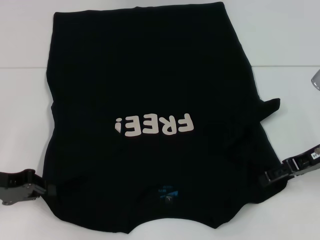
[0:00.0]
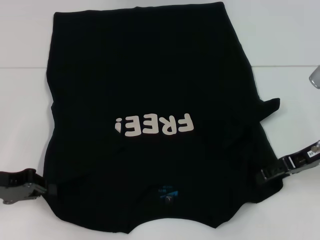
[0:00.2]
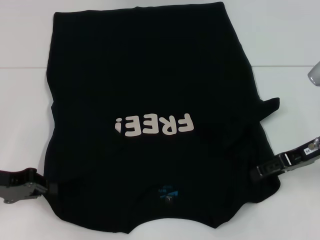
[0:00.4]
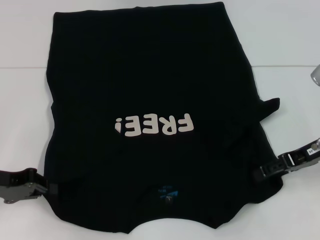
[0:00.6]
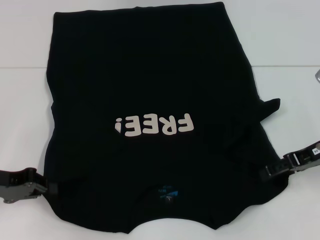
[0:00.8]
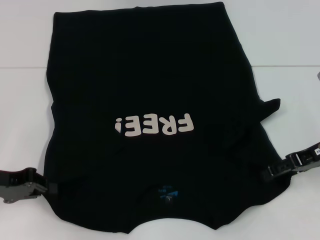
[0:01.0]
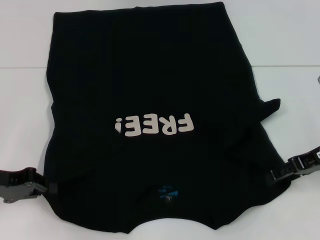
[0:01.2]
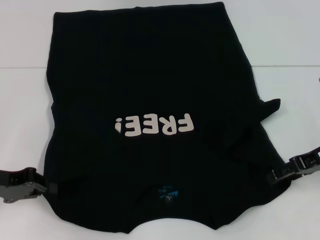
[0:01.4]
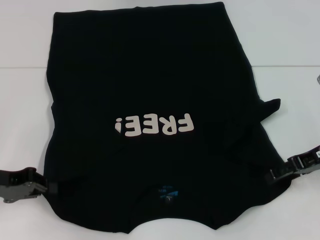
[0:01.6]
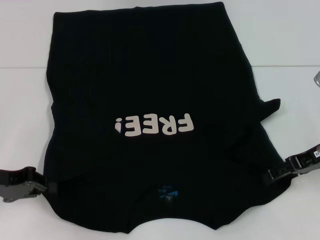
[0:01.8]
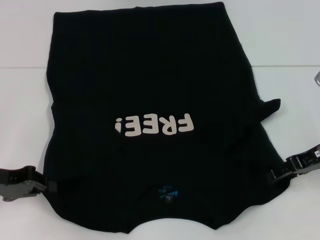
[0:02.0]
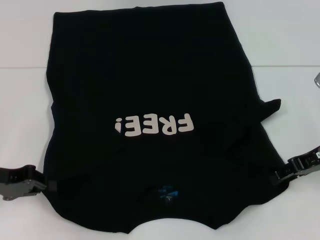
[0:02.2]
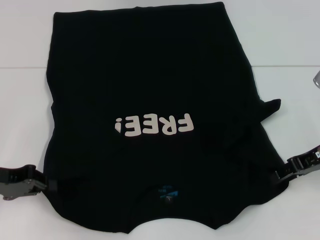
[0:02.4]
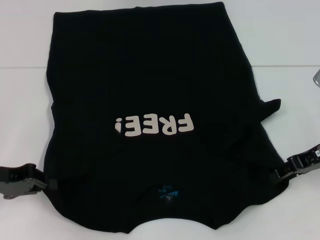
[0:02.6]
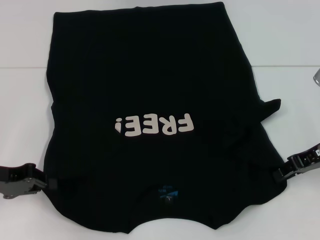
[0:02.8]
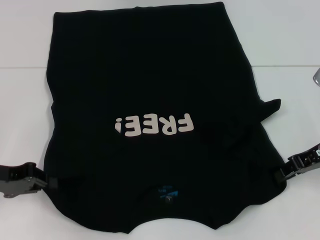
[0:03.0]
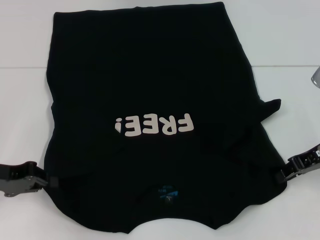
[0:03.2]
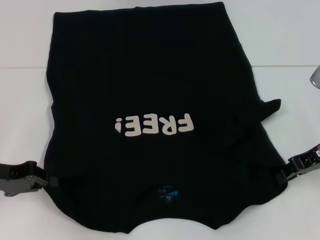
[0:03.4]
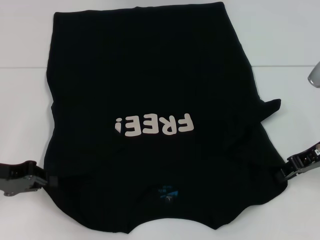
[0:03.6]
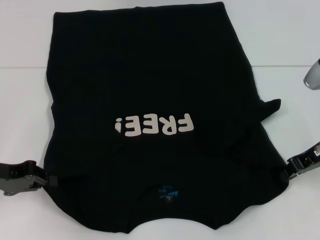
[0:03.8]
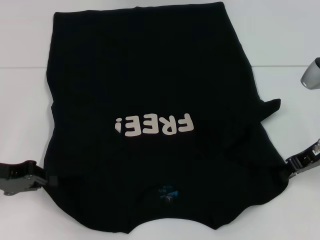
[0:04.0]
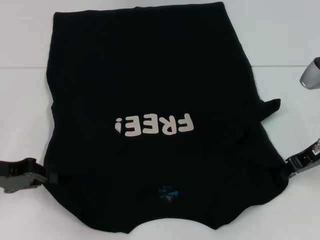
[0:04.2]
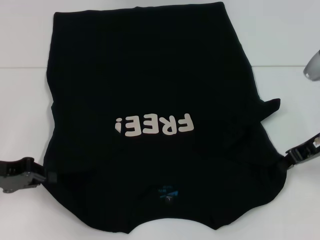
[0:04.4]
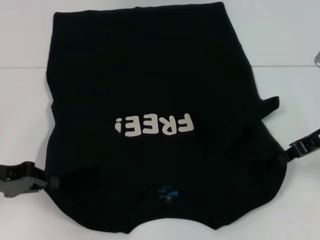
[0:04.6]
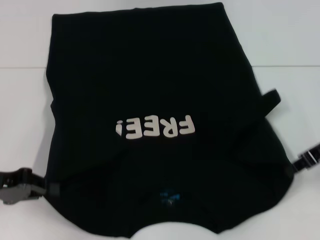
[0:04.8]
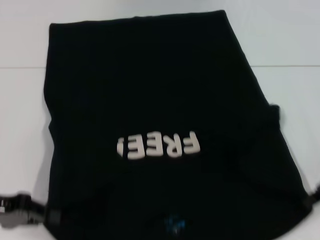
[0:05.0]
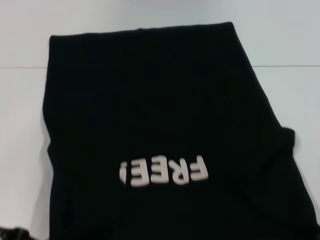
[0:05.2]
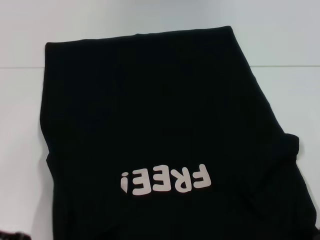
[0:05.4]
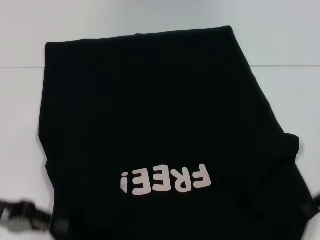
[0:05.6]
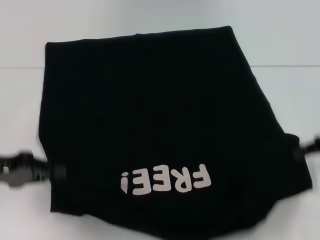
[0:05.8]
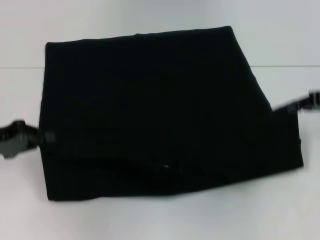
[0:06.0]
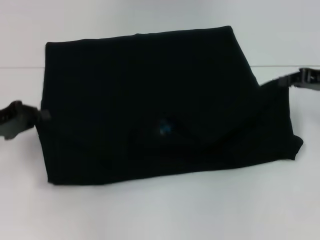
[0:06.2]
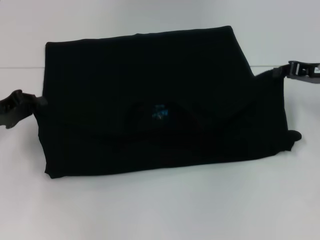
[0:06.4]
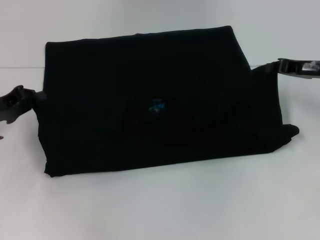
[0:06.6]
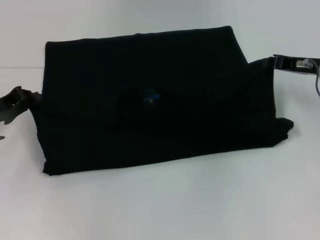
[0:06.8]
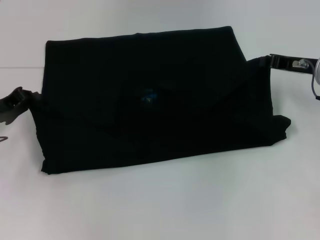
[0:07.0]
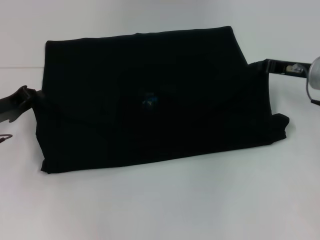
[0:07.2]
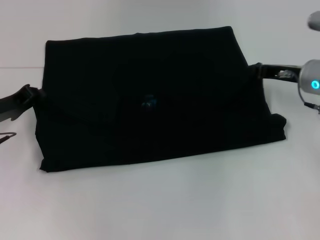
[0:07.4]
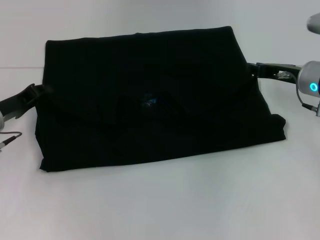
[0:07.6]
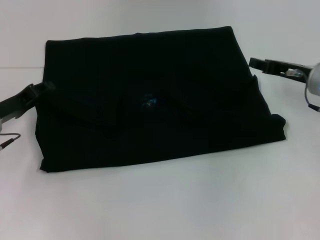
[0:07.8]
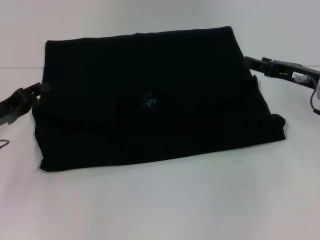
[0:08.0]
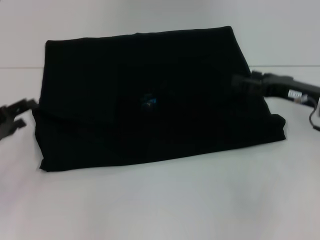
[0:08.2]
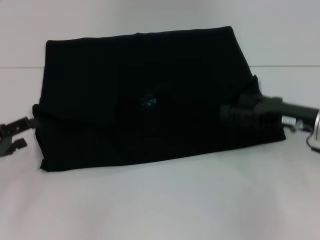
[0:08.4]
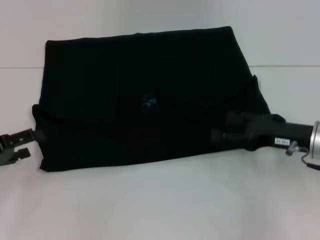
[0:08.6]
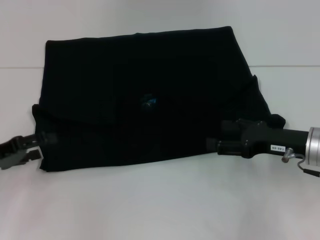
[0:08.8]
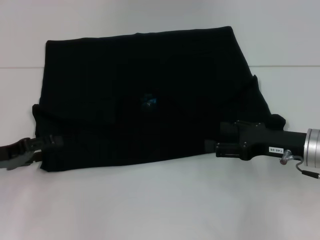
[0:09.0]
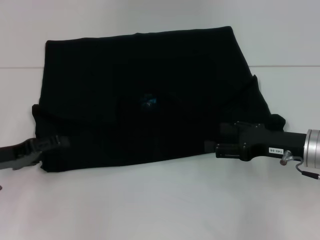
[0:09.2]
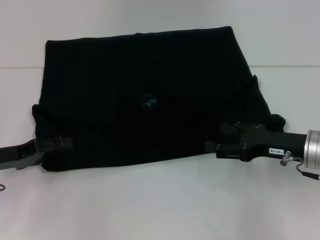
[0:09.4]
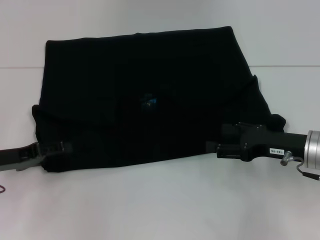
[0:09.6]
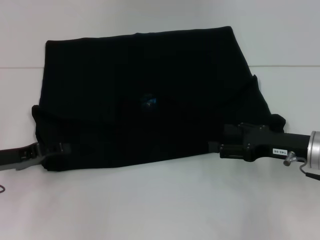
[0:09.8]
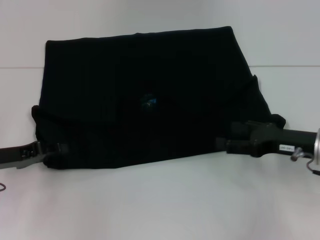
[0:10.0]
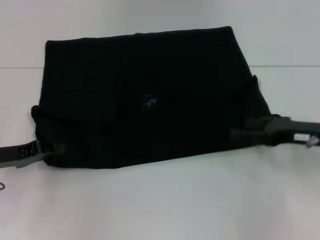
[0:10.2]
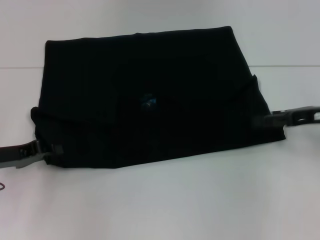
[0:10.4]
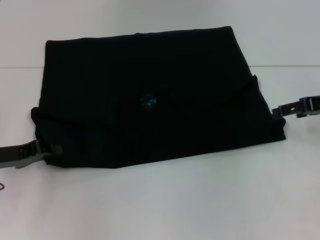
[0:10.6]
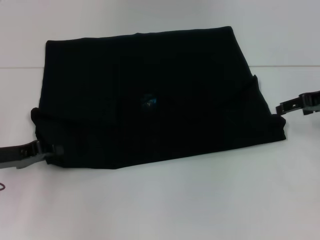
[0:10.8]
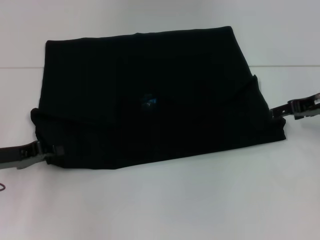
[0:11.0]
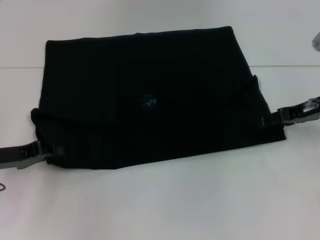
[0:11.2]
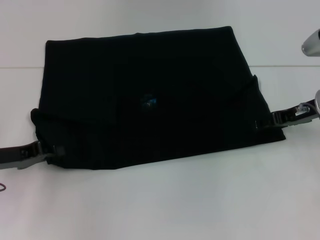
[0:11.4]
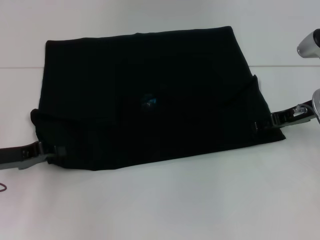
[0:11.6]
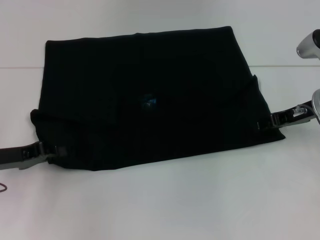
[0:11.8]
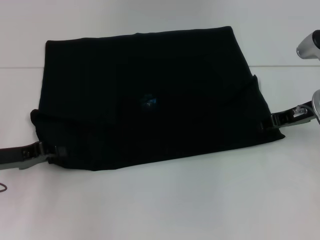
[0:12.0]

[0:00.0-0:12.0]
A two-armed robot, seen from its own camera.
Step, 0:00.0 to 0:04.2: Grab the bottom right corner with your right hand.
Step, 0:04.4 to 0:07.8: Fold the clothes with your left hand.
Step, 0:04.4 to 0:07.8: Fold the clothes with your right hand.
0:00.0 to 0:01.6: Neither gripper changes place.
0:01.6 to 0:03.0: The right gripper closes up.
0:03.0 to 0:04.4: There are only small adjustments of the grippers.
0:04.4 to 0:06.0: The right gripper is displaced to the right by approximately 5 cm, and reaches some 5 cm backward, then returns. Meanwhile the left gripper moves roughly 5 cm backward and comes back.
0:06.0 to 0:07.6: The right gripper shifts roughly 10 cm to the left and downward. The left gripper travels forward by about 5 cm.
0:07.6 to 0:09.0: The left gripper travels backward by about 5 cm, and opens its fingers; the right gripper travels backward by approximately 10 cm, and opens up.
0:09.0 to 0:10.4: The left gripper closes its fingers; the right gripper moves to the right and upward, some 10 cm.
0:10.4 to 0:12.0: The right gripper shifts by approximately 5 cm, and closes its fingers.

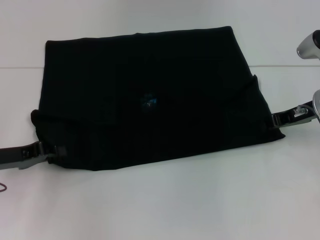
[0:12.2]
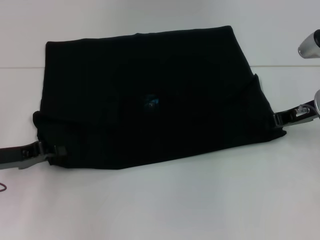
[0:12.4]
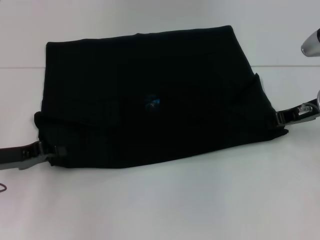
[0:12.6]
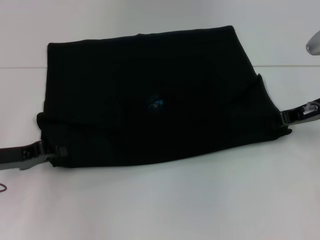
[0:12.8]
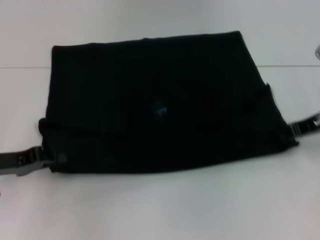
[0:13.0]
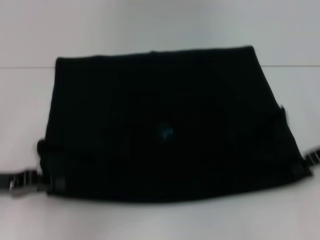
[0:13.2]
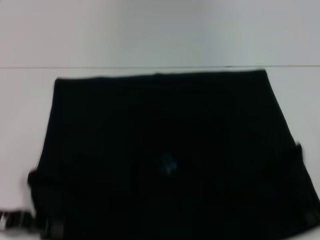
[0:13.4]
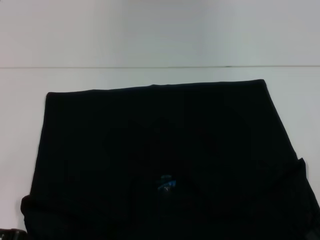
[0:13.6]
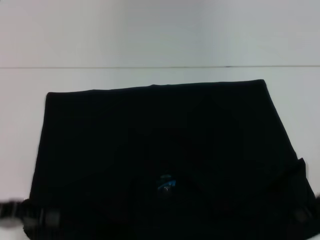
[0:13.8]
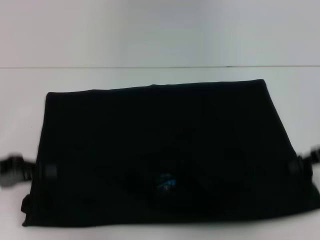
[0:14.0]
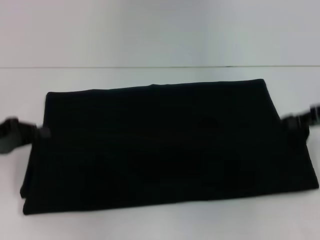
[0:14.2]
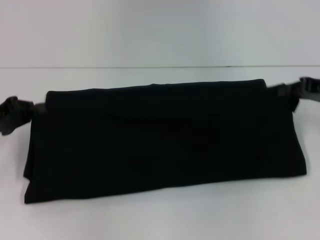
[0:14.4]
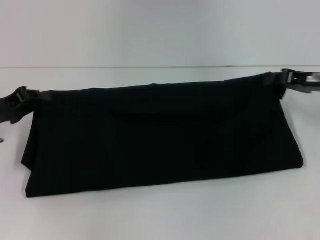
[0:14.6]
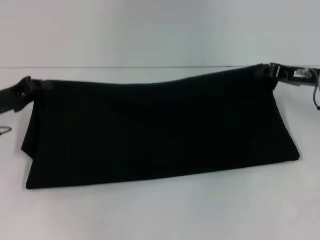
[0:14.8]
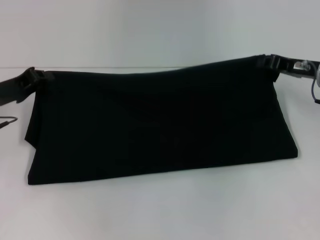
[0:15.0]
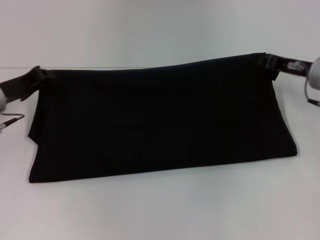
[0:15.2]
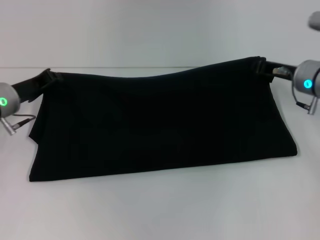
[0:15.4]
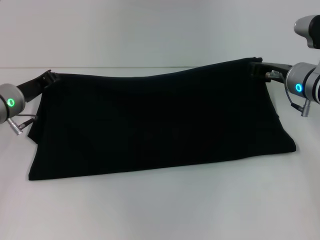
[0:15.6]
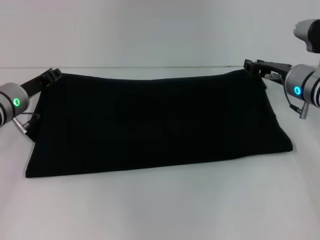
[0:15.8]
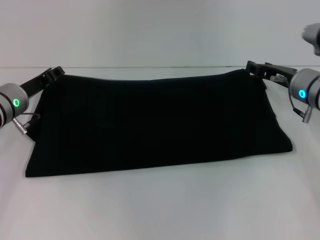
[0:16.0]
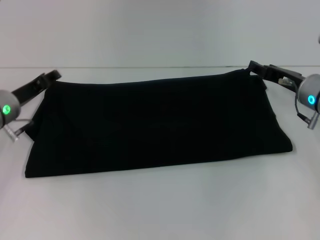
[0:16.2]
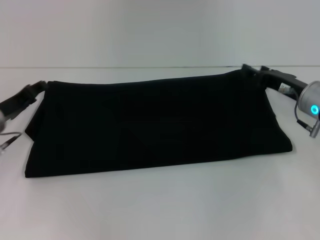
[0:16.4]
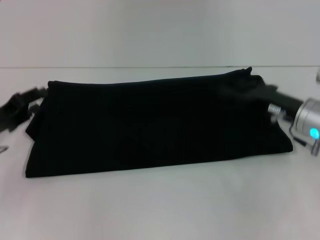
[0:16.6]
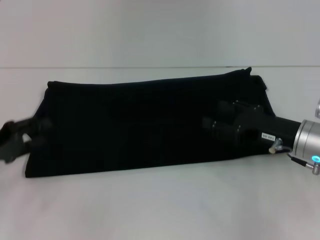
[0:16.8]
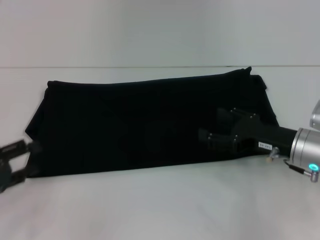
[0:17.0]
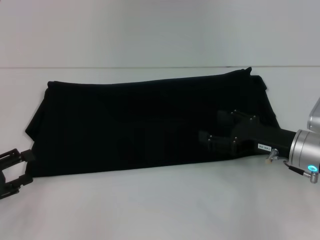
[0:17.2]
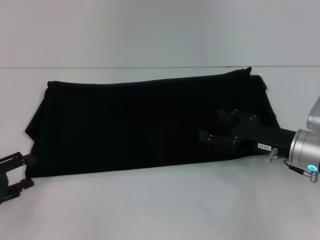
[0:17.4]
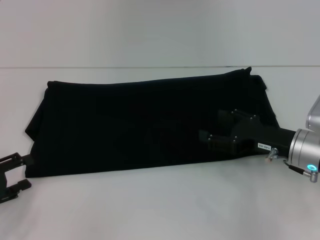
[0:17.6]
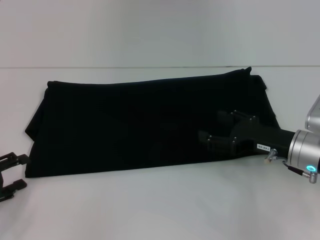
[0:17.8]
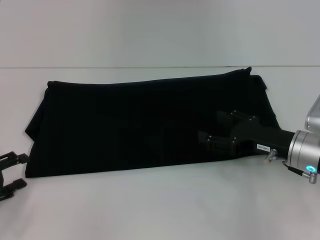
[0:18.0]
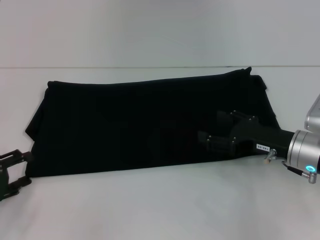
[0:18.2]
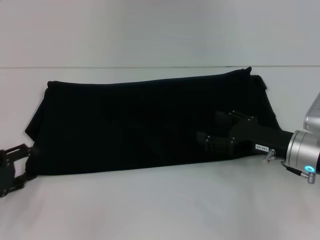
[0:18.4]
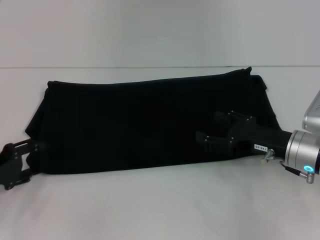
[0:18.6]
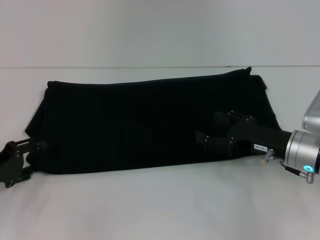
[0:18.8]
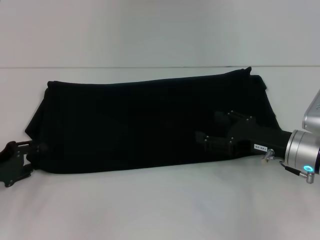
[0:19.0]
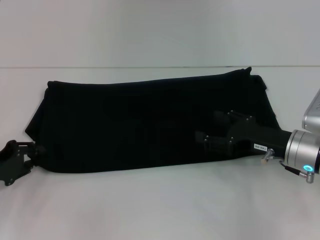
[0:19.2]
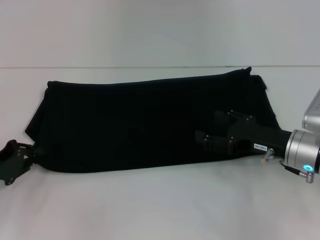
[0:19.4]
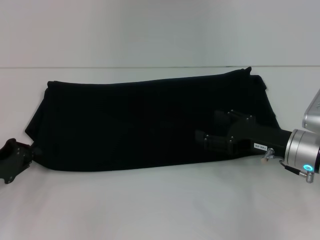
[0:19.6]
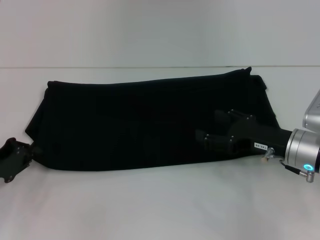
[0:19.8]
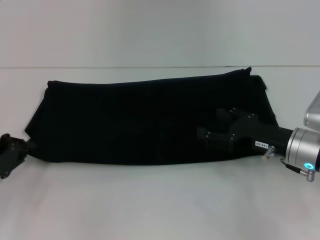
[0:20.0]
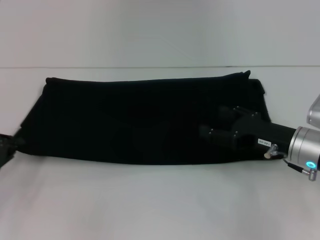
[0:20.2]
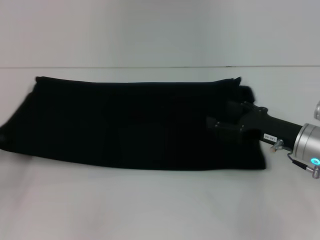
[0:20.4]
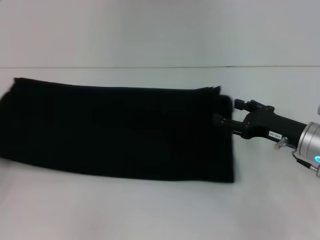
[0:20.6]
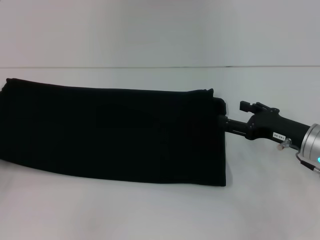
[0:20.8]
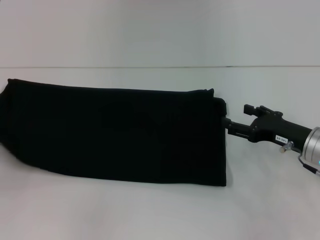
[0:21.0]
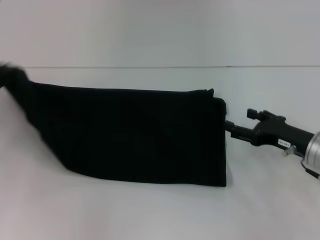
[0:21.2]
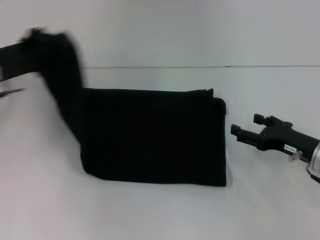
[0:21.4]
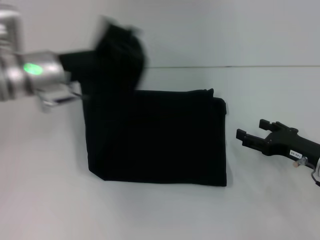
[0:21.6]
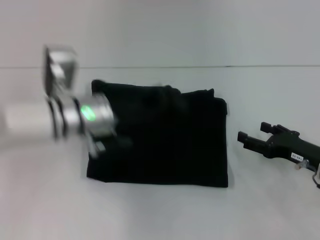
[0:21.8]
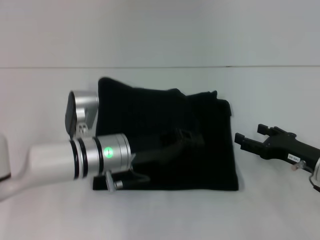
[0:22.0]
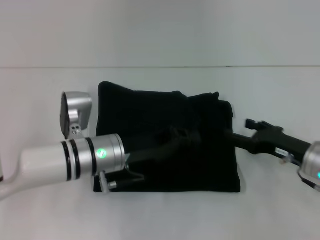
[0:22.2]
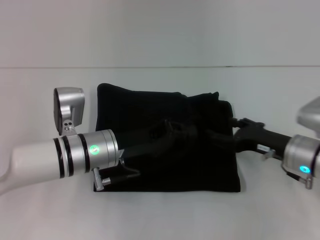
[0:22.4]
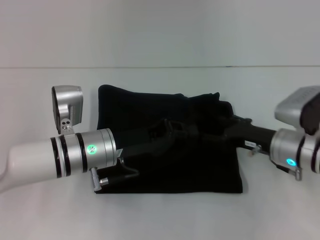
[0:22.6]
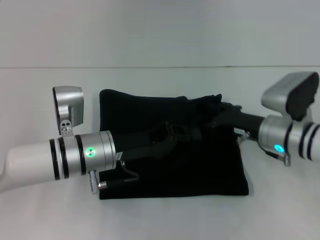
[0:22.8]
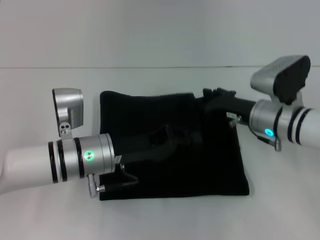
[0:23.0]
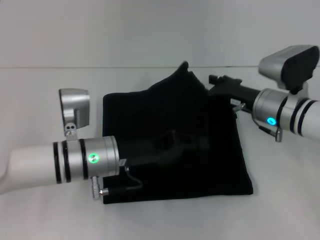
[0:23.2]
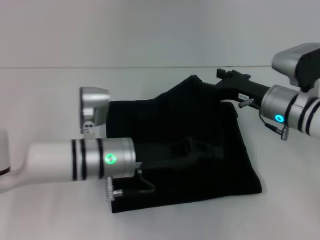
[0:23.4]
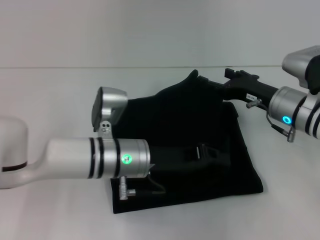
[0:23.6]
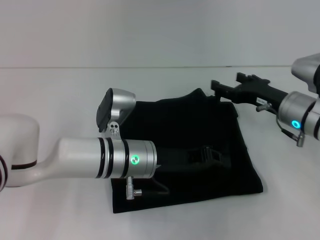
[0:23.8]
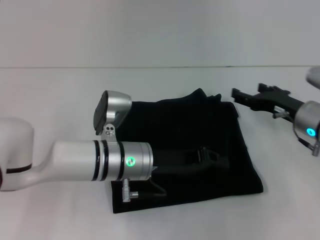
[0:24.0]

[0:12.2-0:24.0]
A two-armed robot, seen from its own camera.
Step, 0:13.6 to 0:16.0: Fold the clothes with your right hand.
0:12.2 to 0:13.6: The grippers both shift backward by roughly 10 cm. The right gripper closes its fingers.
0:13.6 to 0:15.2: The right gripper heads forward and to the left, covering some 15 cm; the left gripper is displaced forward by some 15 cm.
0:15.2 to 0:16.6: The two grippers go some 5 cm backward. The right gripper opens its fingers. The left gripper opens up.
0:16.6 to 0:18.2: The left gripper heads backward, covering approximately 10 cm.
0:18.2 to 0:19.6: The left gripper closes its fingers.
0:19.6 to 0:21.0: The left gripper goes roughly 5 cm to the left.
0:21.0 to 0:22.6: The left gripper moves to the right, roughly 30 cm.
0:22.6 to 0:24.0: The left gripper is displaced to the right by some 5 cm.
